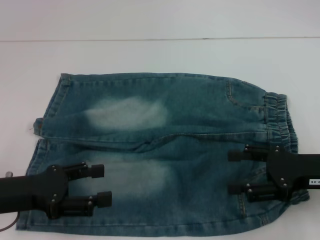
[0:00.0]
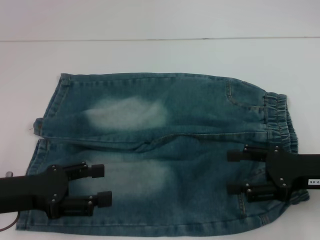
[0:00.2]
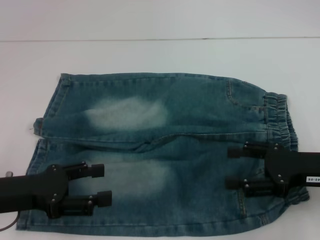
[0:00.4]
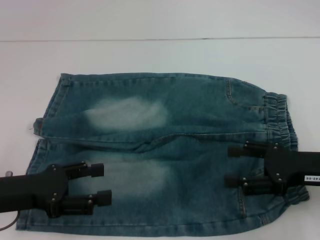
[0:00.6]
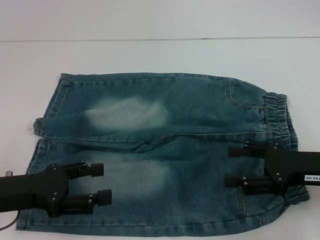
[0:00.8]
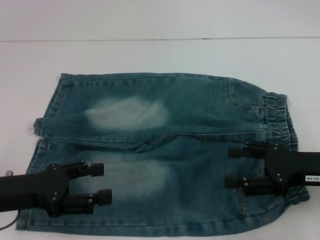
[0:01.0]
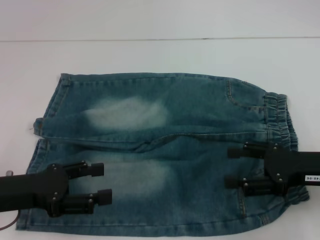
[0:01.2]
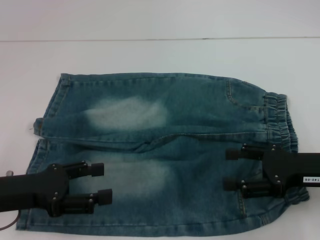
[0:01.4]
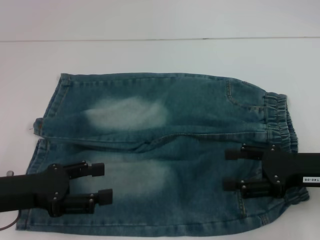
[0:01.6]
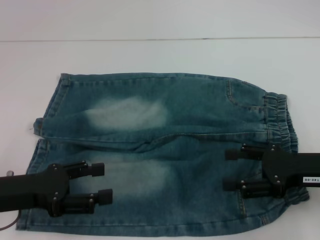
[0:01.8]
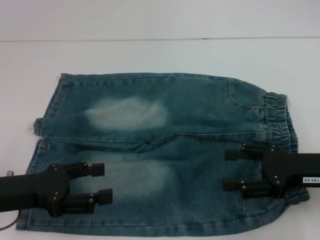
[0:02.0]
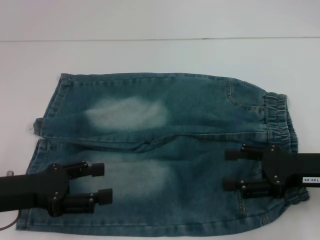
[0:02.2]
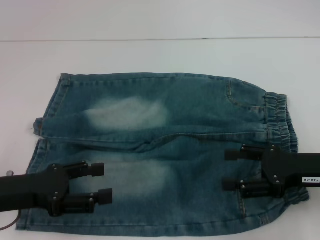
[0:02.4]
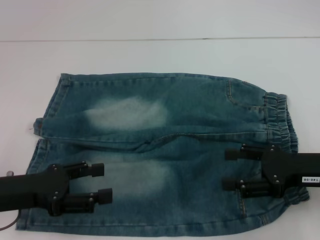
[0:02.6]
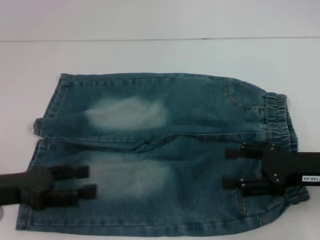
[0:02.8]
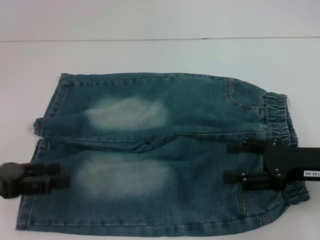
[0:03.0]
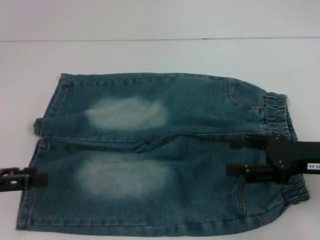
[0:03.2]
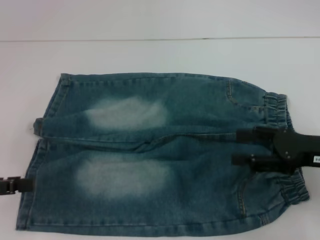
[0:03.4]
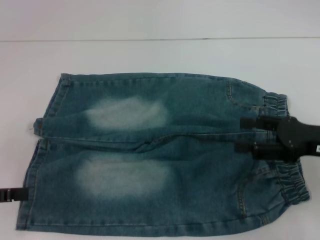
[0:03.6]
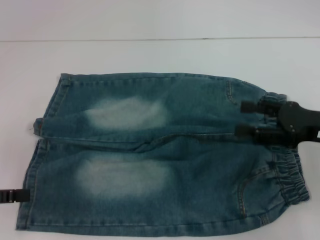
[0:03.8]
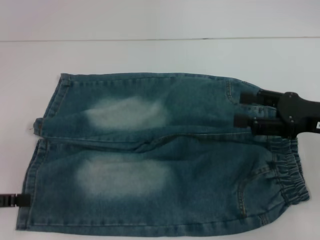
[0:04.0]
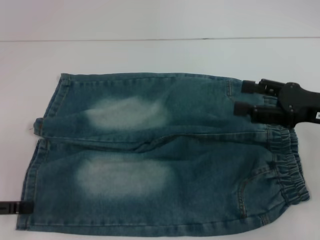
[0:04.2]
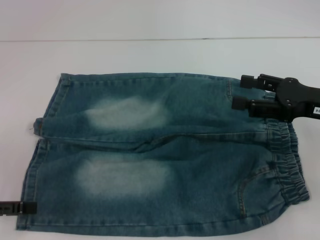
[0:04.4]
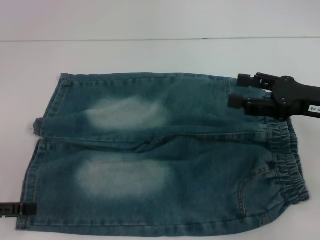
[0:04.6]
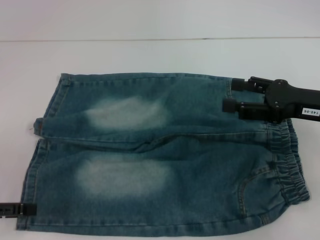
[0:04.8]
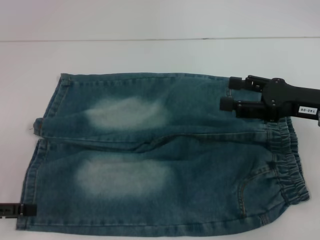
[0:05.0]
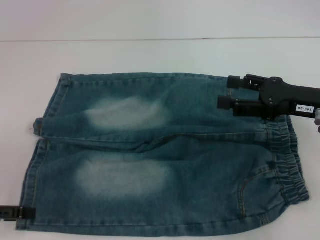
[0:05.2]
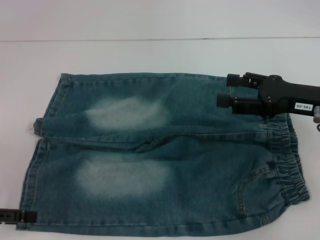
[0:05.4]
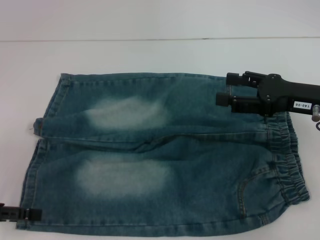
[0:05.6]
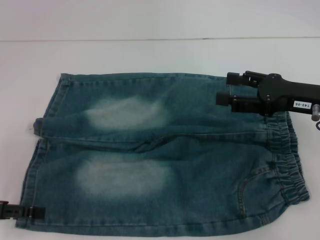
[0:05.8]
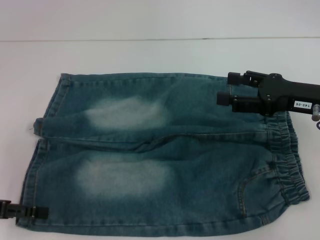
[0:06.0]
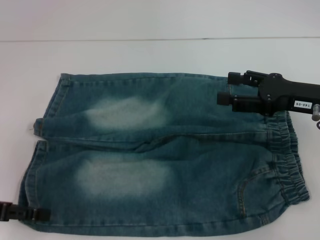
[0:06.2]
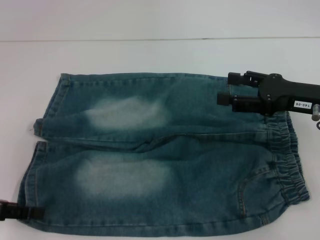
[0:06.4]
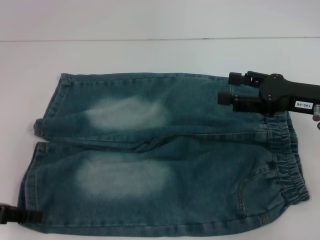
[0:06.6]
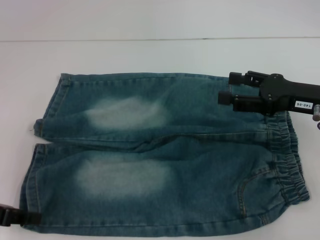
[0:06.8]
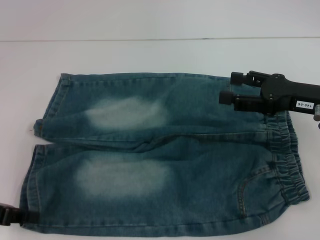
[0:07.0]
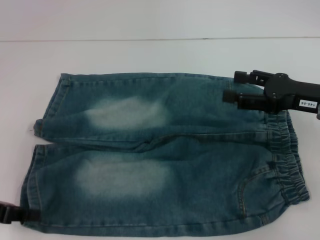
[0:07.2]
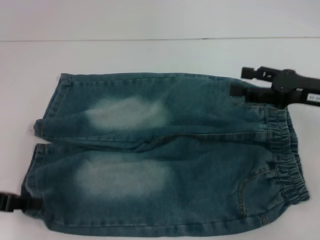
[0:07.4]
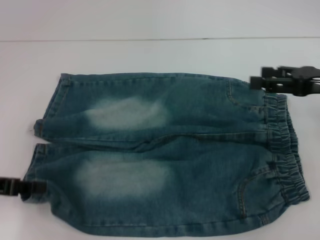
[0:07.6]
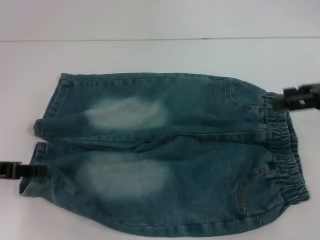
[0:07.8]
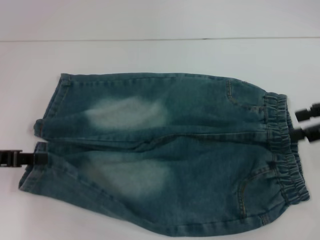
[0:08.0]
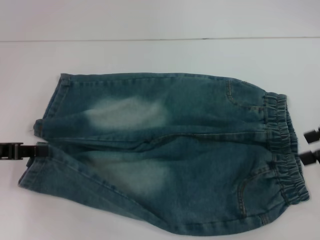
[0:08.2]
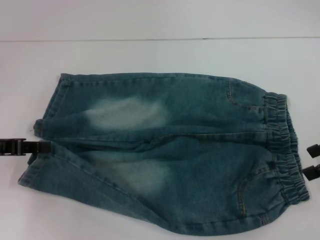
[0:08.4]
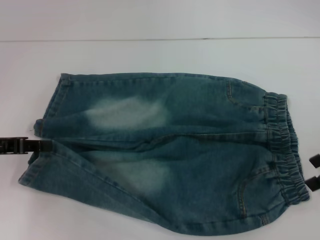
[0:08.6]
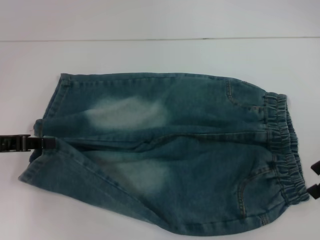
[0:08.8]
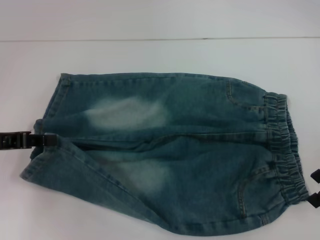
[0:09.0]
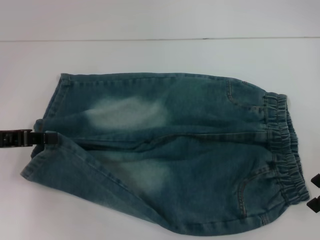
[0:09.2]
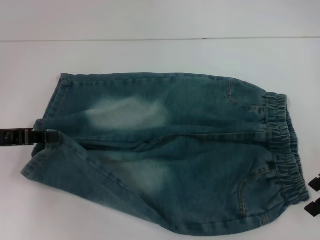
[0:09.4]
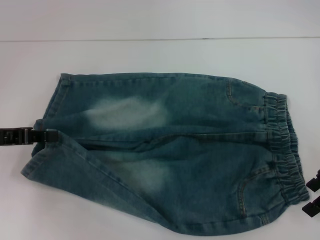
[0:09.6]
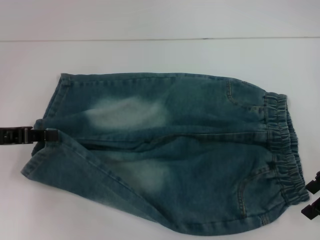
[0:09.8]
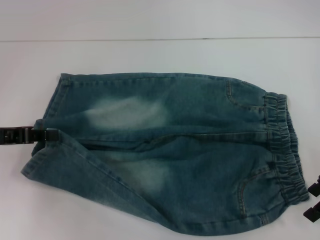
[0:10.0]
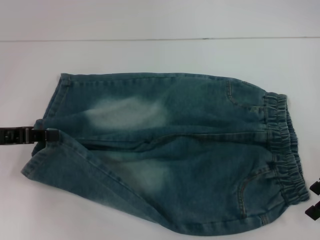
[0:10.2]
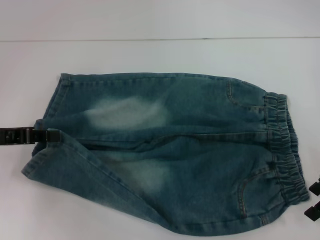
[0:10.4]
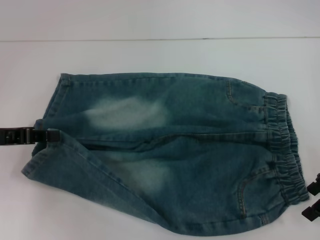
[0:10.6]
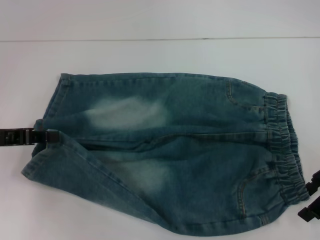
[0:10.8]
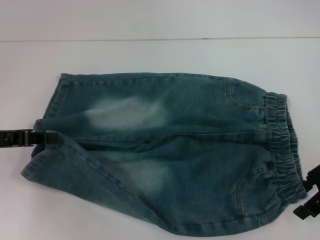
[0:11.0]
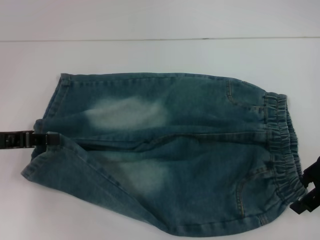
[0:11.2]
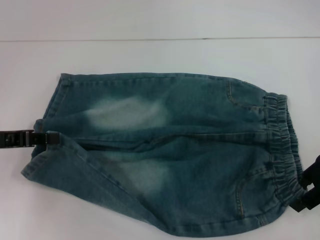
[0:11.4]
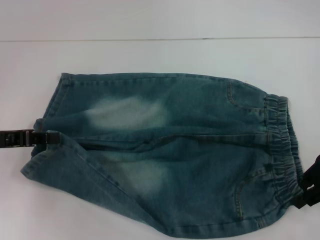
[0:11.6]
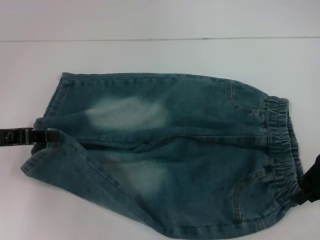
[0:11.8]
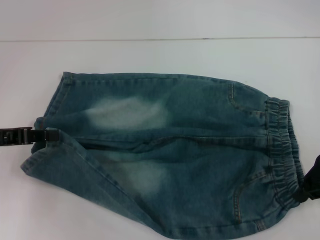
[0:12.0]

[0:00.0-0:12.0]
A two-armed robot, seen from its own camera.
Step, 0.0 to 6.2 s: Grab the lower left pant leg with your left hand.
Step, 6.4 to 12.0 s: Hold the lower right waistband with your right hand.
0.0 to 1.6 s: The two grippers keep their place.
1.6 to 3.0 s: The left gripper shifts by some 5 cm.
3.0 to 4.4 s: The right gripper shifts by roughly 5 cm.
4.4 to 6.0 s: The grippers make only small movements.
6.0 to 7.6 s: The right gripper moves approximately 5 cm. Meanwhile the left gripper closes up.
9.0 to 10.4 s: The grippers stay close to where they were, moving slightly.
10.4 to 12.0 s: The right gripper closes.

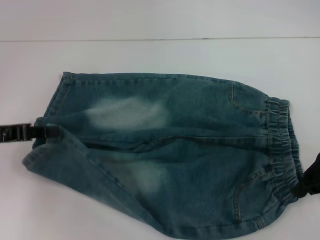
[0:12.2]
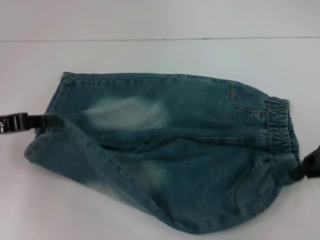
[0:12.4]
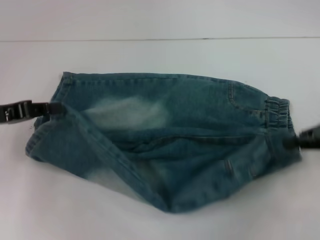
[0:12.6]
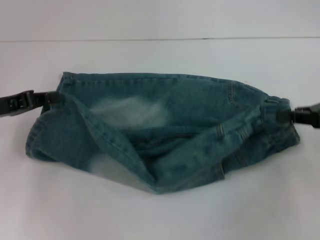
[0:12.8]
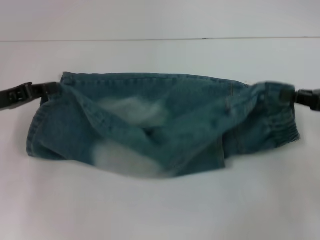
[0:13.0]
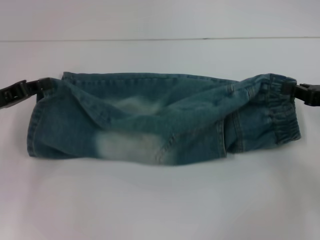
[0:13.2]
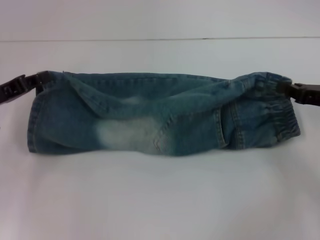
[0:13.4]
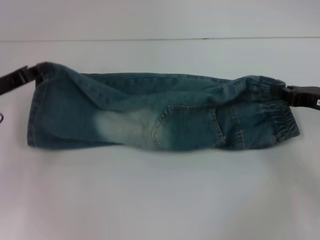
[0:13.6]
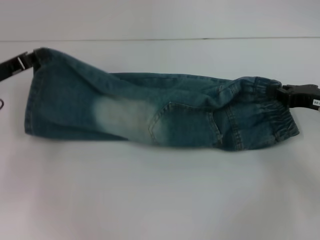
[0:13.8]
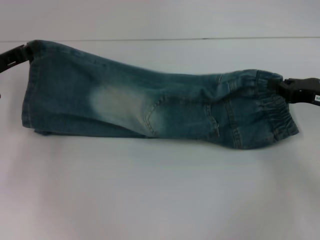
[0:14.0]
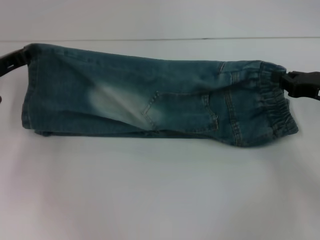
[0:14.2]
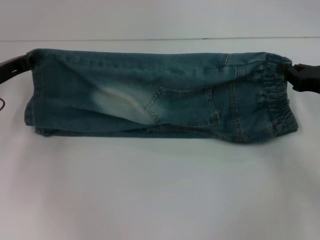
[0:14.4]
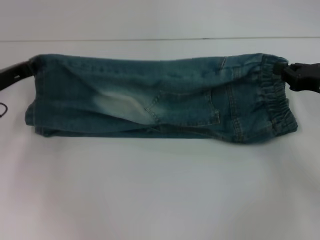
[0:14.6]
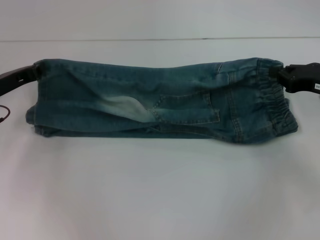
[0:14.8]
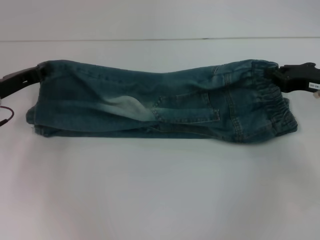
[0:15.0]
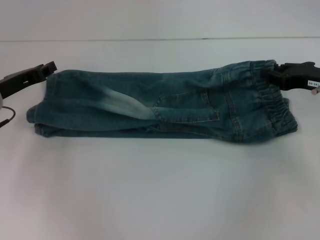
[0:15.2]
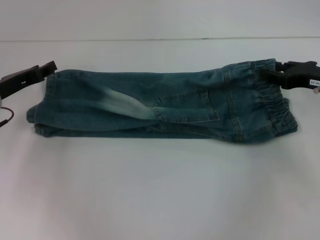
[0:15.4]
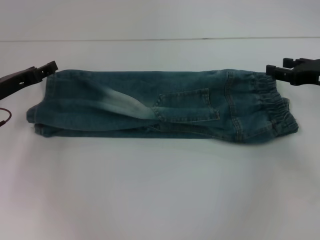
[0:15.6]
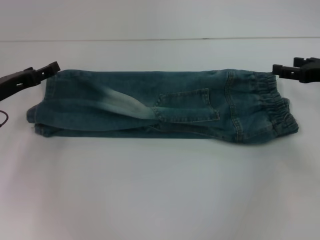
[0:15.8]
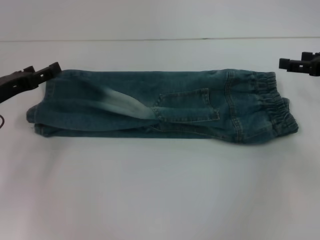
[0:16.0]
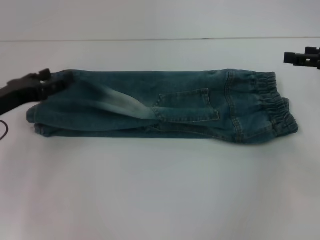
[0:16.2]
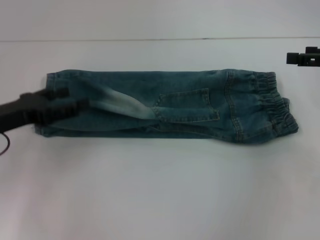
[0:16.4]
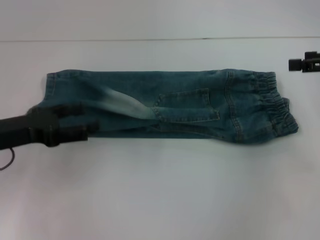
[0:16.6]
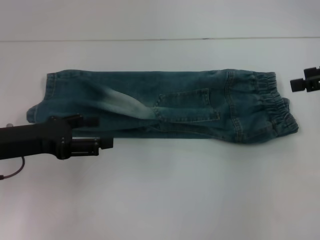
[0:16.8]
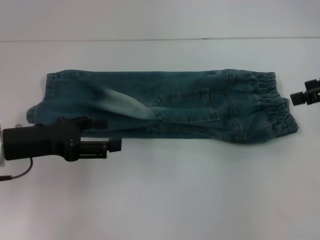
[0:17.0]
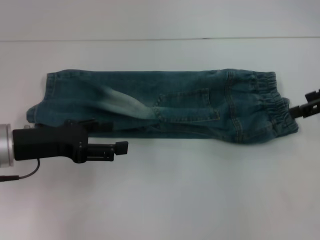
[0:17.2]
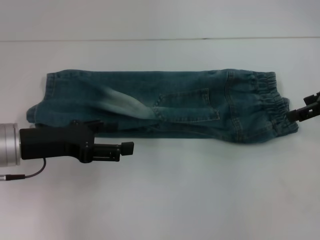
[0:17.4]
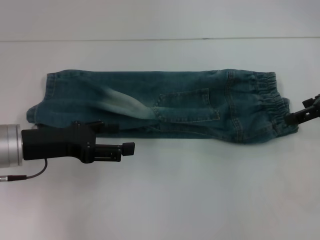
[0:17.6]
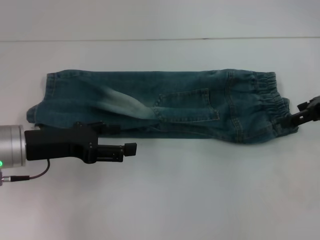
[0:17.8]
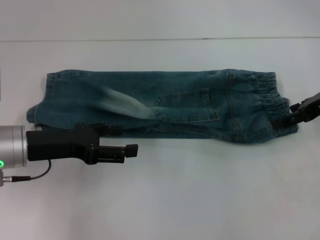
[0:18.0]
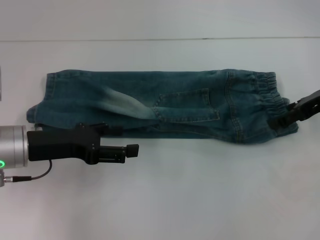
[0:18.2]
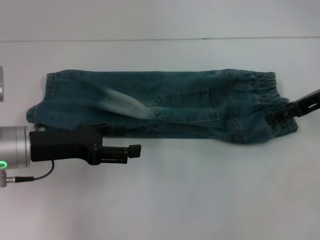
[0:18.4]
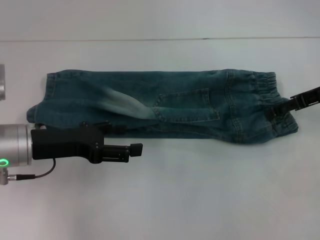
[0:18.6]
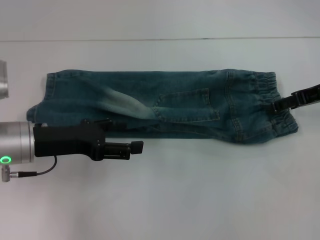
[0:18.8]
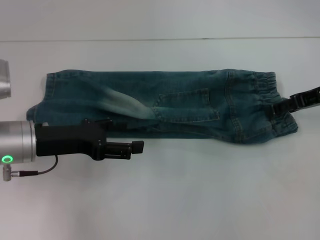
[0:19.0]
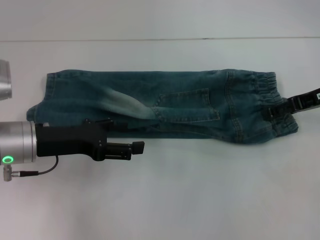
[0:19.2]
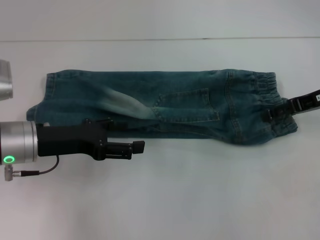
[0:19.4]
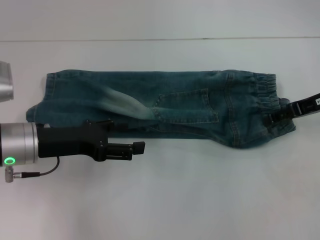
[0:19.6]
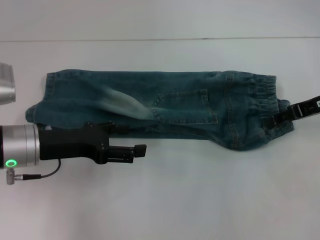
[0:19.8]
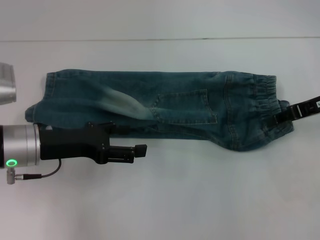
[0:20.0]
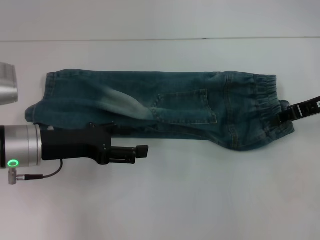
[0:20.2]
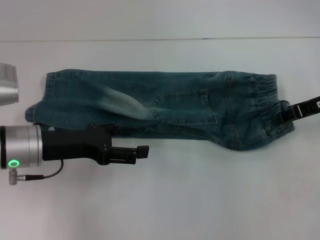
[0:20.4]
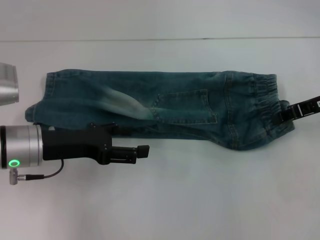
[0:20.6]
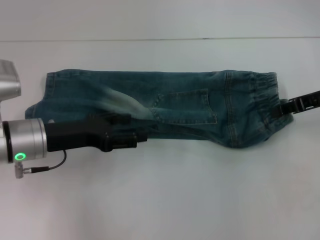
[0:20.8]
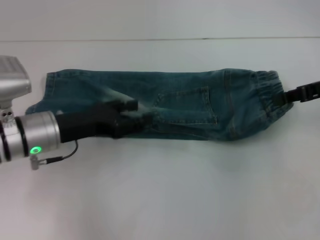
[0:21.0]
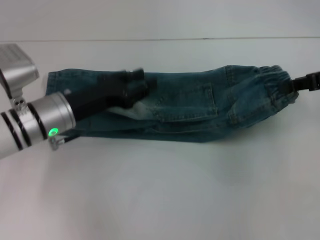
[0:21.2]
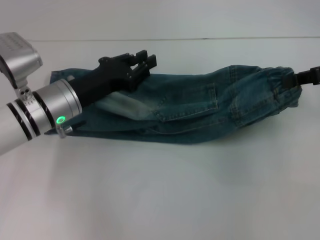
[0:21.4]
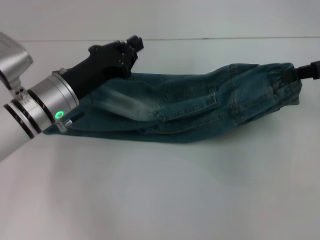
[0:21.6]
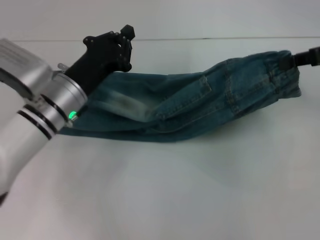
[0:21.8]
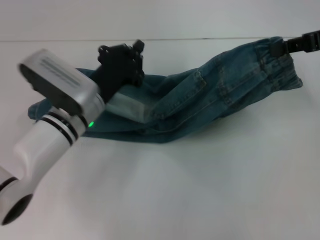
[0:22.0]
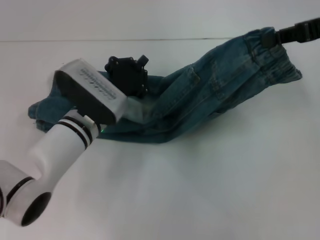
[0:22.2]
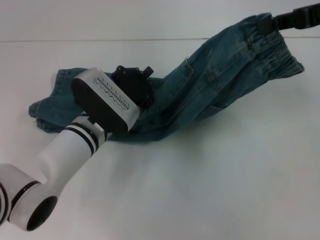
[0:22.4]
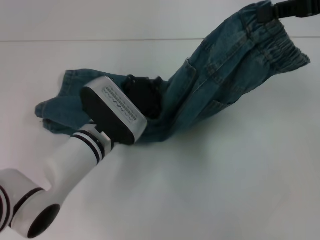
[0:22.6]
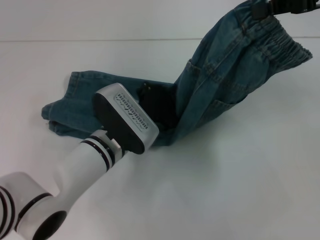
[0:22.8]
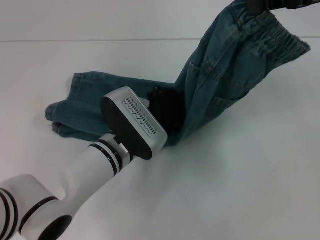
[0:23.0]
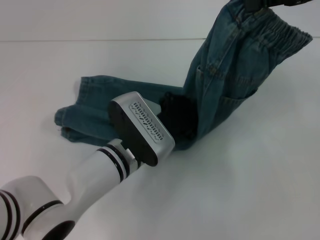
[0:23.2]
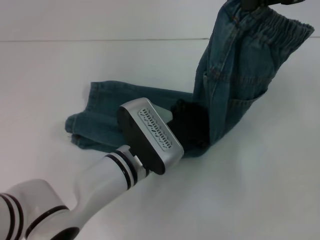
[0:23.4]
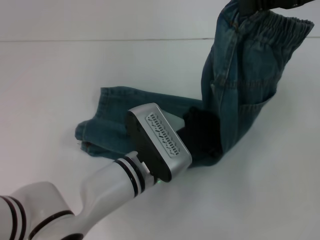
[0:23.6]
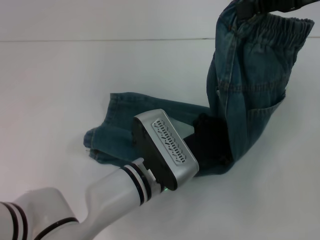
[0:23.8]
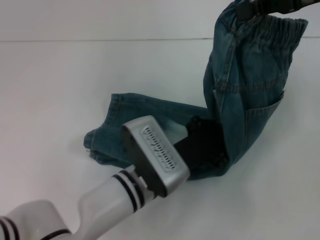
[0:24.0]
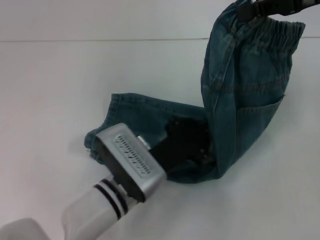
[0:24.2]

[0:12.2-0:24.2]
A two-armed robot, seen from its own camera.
Step, 12.2 to 15.2 s: Fold upward with your left hand.
Step, 15.8 to 20.4 s: Grab the waistband with your right hand.
Step, 20.6 to 24.0 s: Press the middle of the pants with your left hand.
12.2 to 13.8 s: The right gripper heads downward, covering approximately 5 cm. Meanwhile the left gripper shifts roughly 5 cm forward.
13.8 to 15.2 s: The grippers make only small movements.
15.2 to 16.6 s: The right gripper heads upward and to the right, covering approximately 10 cm, and opens its fingers. The left gripper moves backward, roughly 10 cm, and opens.
16.6 to 18.2 s: The right gripper travels to the left by about 5 cm, while the left gripper ends up roughly 5 cm from where it was.
18.2 to 19.8 s: The grippers stay close to where they were, moving slightly.
19.8 to 21.2 s: The right gripper moves approximately 5 cm, and closes its fingers. Meanwhile the left gripper shifts by roughly 5 cm.
21.2 to 22.6 s: The right gripper shifts some 10 cm upward; the left gripper shifts approximately 10 cm to the right, and closes up.
22.6 to 24.2 s: The left gripper shifts approximately 10 cm backward.
